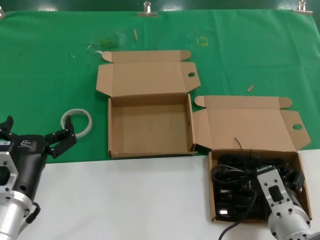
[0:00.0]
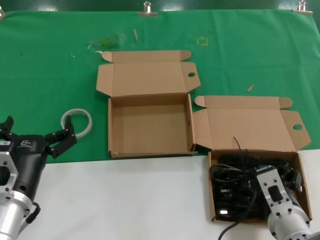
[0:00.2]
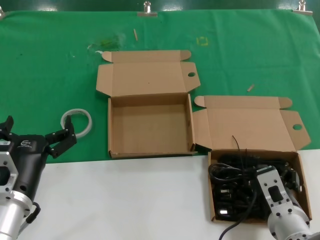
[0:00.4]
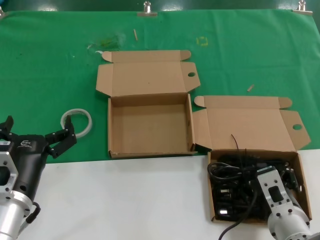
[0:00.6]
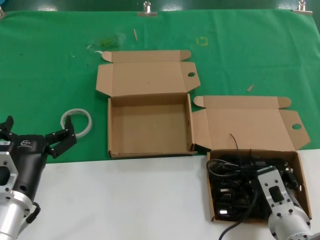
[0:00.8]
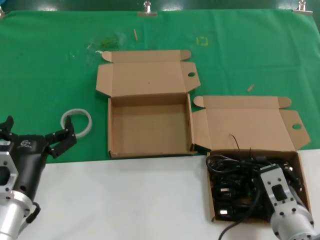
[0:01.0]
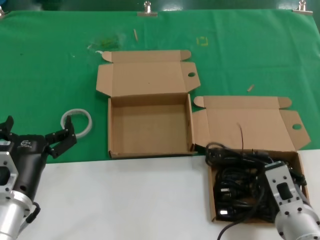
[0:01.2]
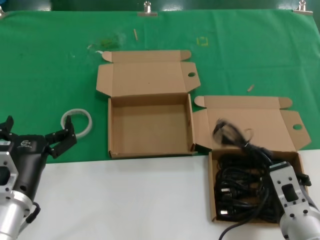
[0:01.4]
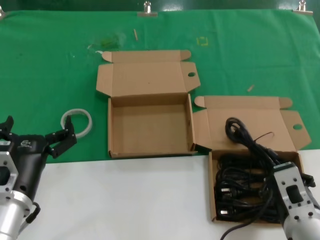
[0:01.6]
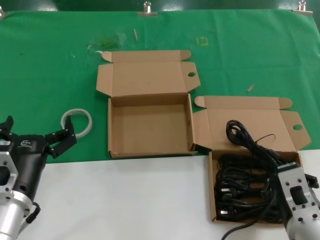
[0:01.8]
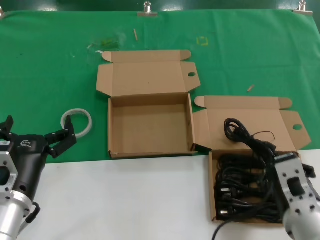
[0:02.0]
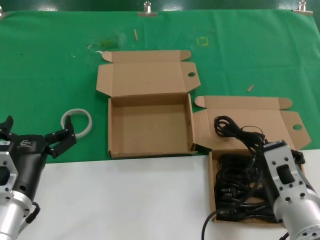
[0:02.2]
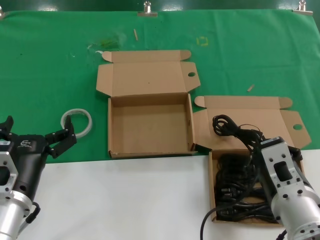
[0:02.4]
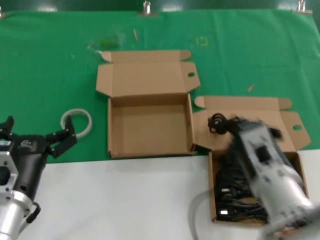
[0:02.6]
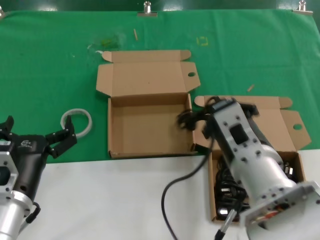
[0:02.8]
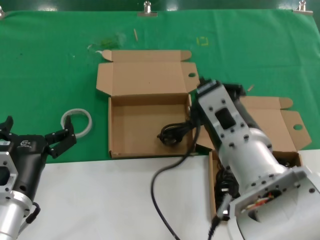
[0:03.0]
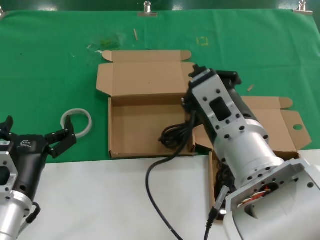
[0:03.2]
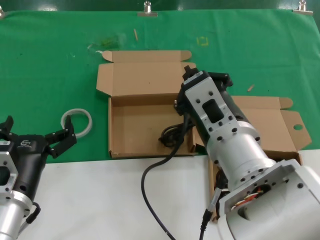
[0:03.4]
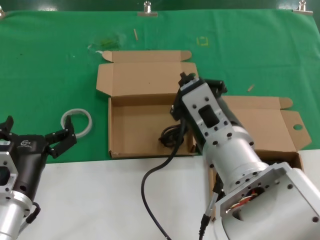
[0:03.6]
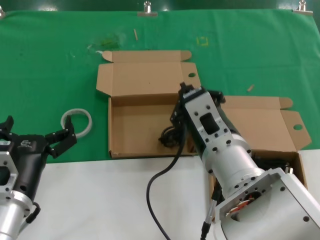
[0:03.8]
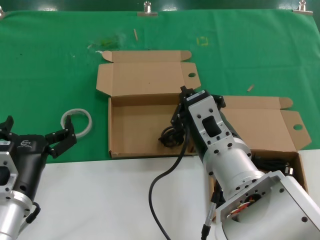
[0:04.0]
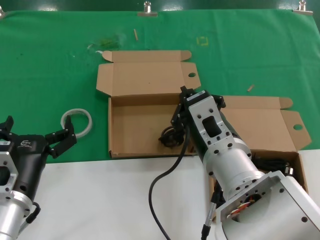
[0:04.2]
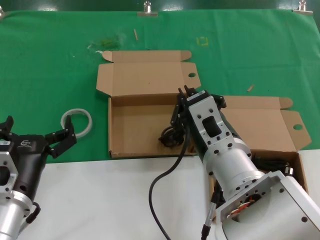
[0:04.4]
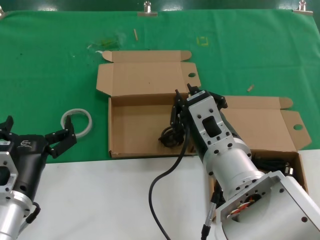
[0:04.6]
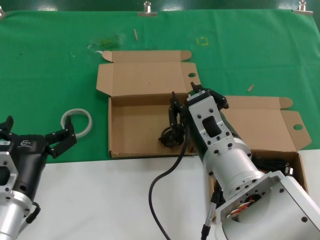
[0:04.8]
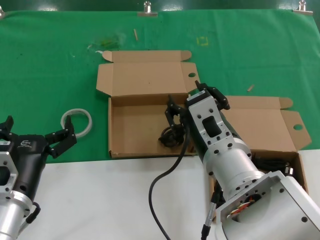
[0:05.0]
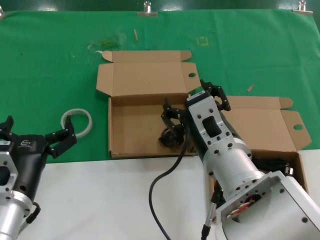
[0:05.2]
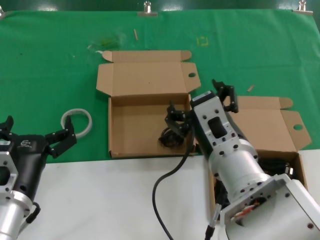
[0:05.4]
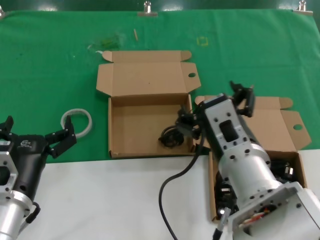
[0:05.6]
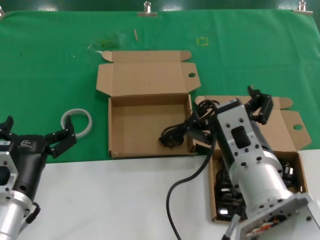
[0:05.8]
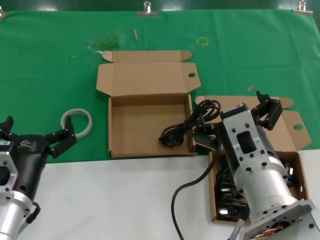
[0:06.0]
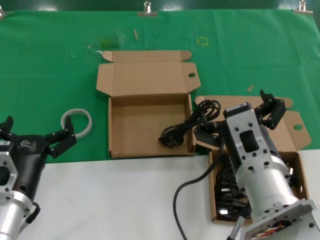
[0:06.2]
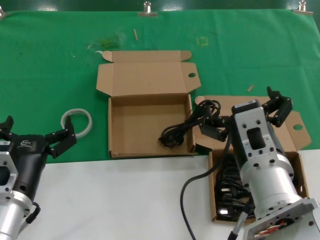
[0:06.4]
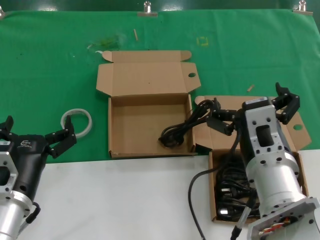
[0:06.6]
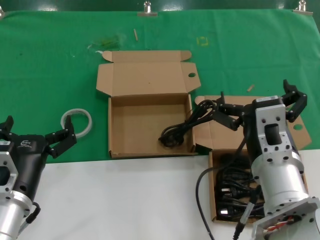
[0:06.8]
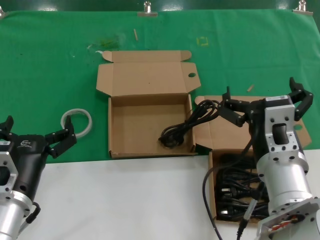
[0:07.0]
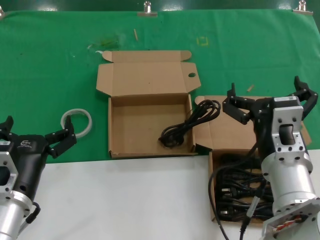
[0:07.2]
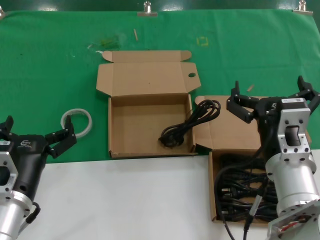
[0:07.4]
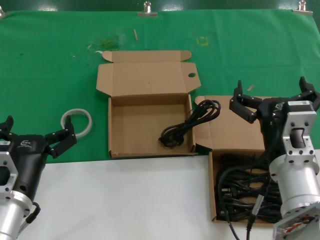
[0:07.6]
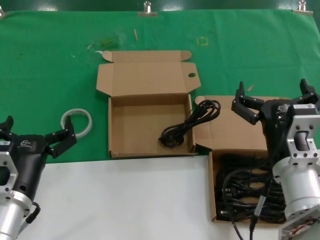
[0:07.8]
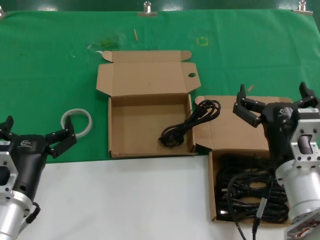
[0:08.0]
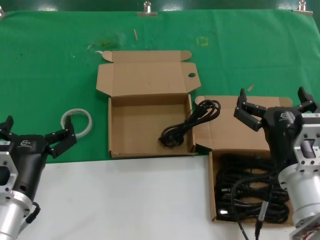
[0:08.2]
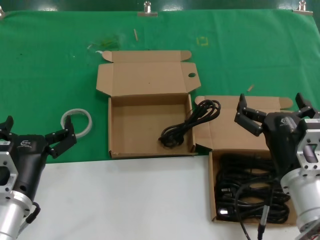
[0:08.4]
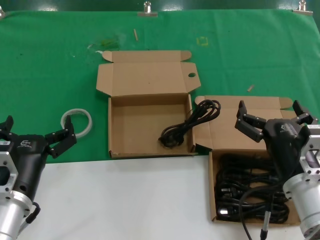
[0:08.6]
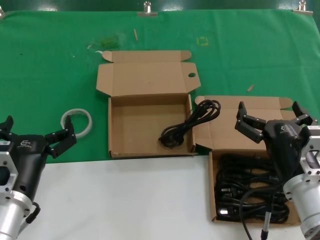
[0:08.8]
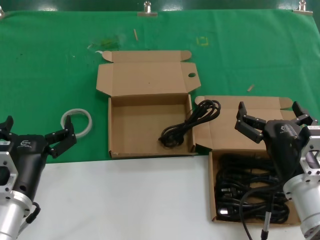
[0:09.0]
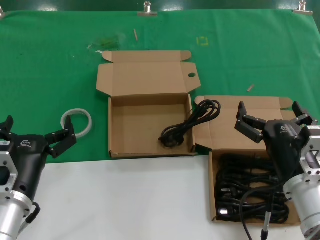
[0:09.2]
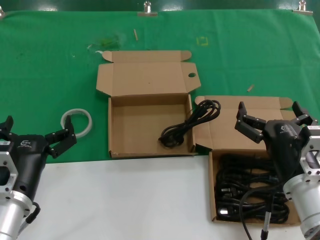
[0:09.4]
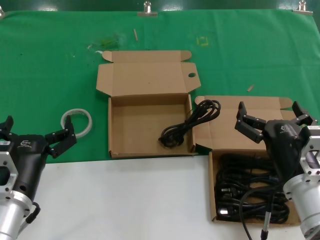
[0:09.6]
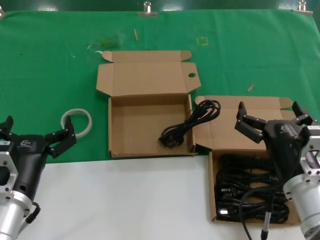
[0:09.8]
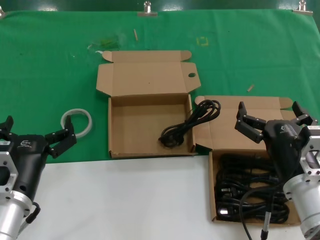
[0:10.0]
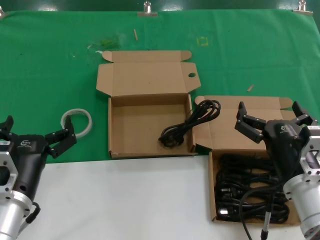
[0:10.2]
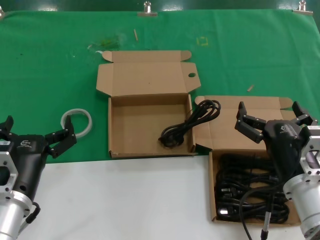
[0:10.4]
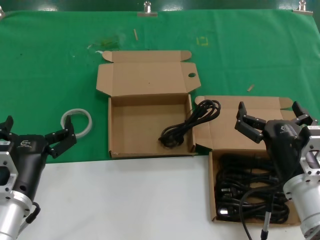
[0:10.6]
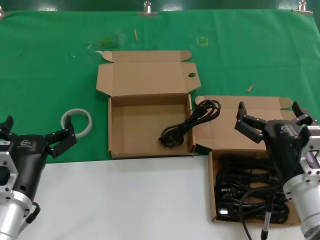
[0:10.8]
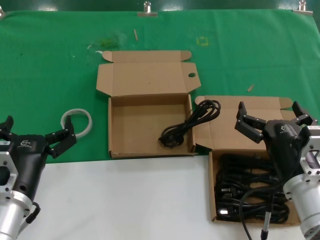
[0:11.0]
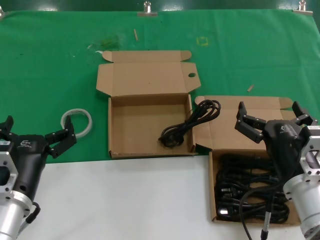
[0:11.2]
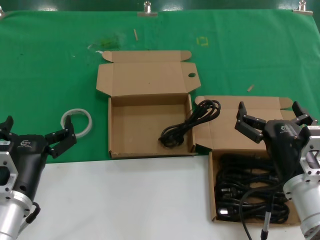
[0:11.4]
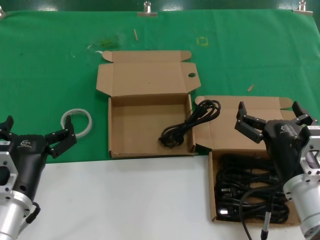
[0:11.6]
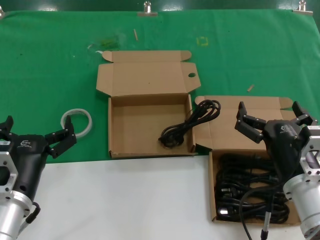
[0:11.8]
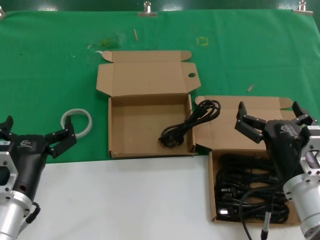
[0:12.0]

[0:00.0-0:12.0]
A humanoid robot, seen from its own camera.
Task of the whole recording: take the parts from the box containing them and put them into an empty box.
Step, 0:01.4 to 0:02.8: Place the data cable in the another box.
0:00.0 to 0:01.6: The right hand heads upward, covering about 5 cm.
0:01.6 to 0:03.0: The right hand travels upward and to the left by some 15 cm.
0:03.0 to 0:06.0: There are only small adjustments of the hands.
0:06.0 to 0:07.6: The right hand goes some 5 cm to the right.
0:07.6 to 0:09.0: The right hand heads downward and to the right, covering roughly 5 cm.
0:09.0 to 0:12.0: Both hands stay put.

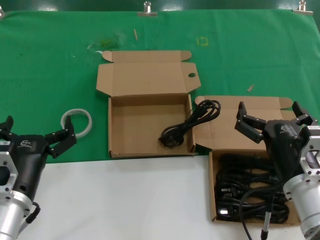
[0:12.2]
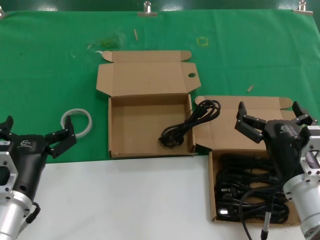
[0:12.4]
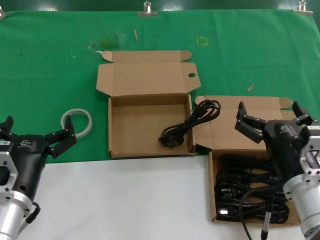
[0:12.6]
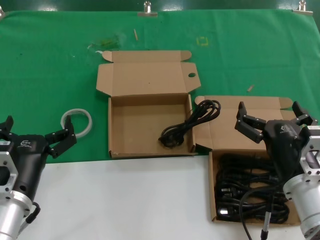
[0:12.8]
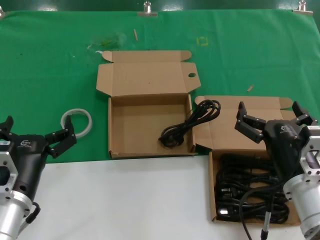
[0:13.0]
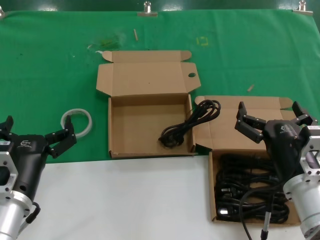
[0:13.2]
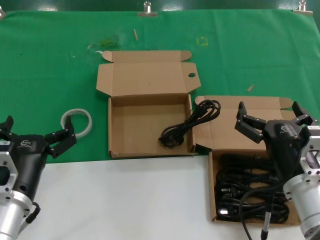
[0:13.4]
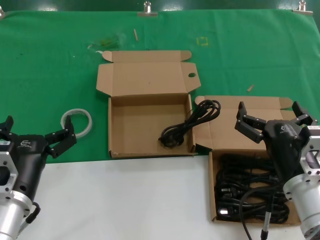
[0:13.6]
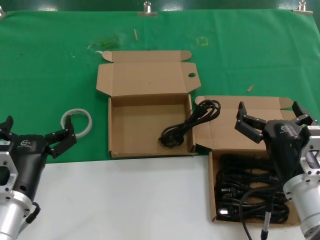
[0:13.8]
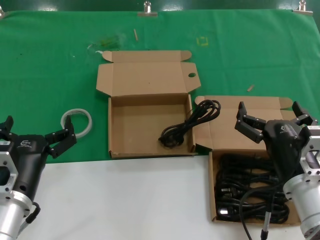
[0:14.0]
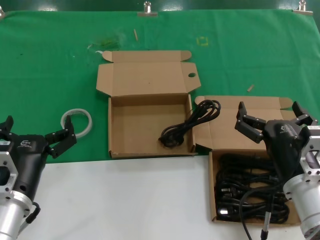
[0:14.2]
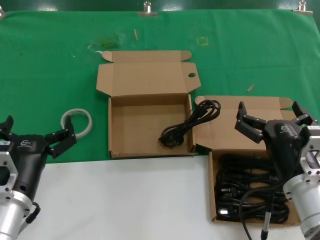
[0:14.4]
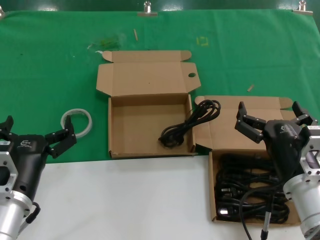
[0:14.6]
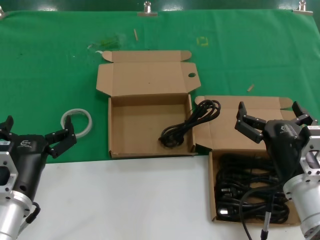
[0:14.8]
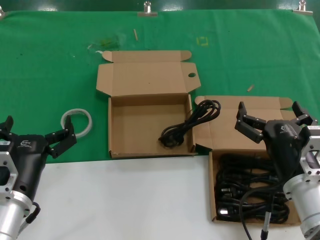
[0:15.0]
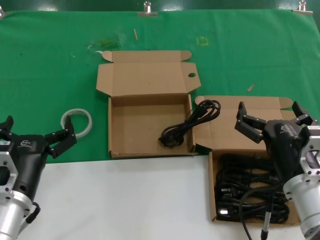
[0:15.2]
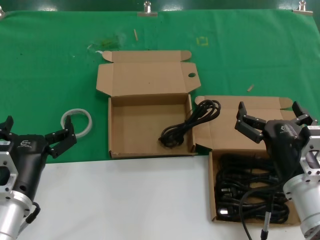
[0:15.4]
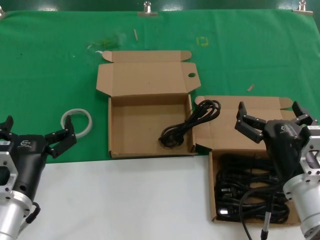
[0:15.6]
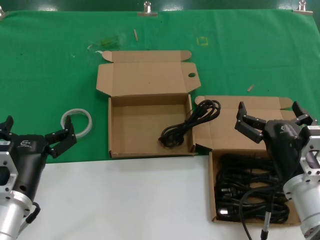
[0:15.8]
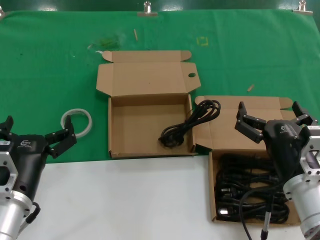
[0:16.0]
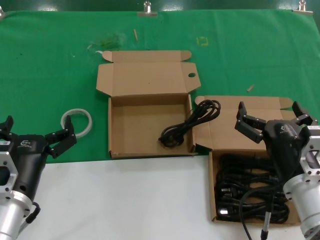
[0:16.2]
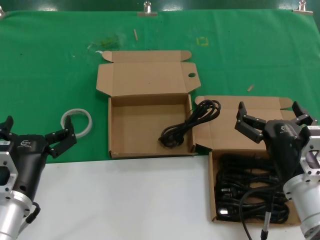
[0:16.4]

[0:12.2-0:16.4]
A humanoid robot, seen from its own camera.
Task of the whole recording: take the parts from the box containing them and put them into an empty box.
0:12.2 to 0:16.4: Neither hand changes place.
